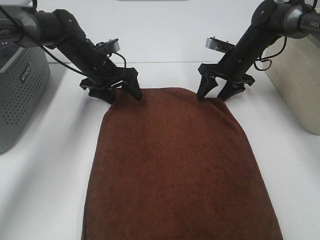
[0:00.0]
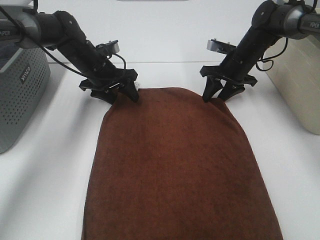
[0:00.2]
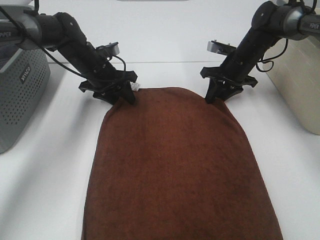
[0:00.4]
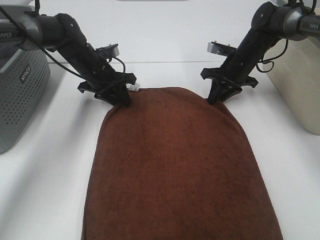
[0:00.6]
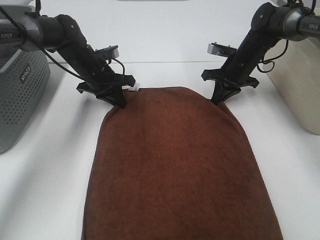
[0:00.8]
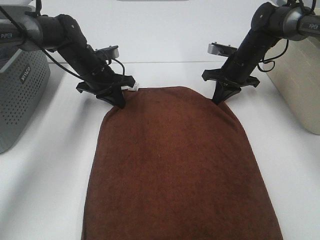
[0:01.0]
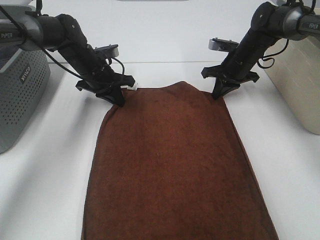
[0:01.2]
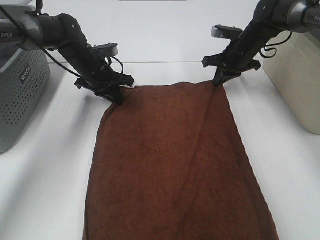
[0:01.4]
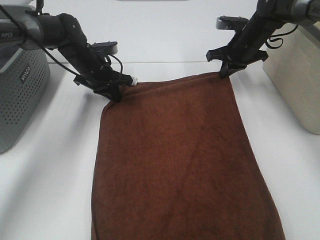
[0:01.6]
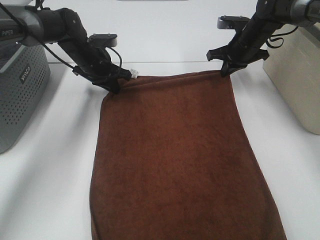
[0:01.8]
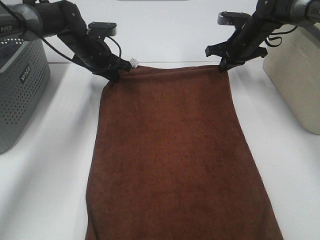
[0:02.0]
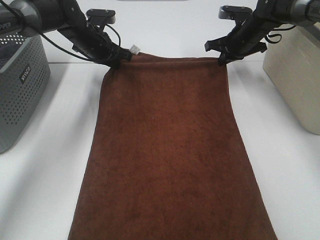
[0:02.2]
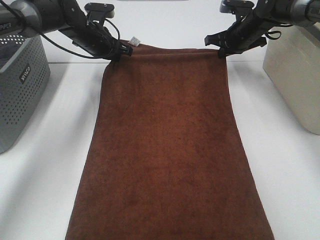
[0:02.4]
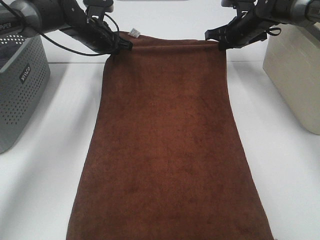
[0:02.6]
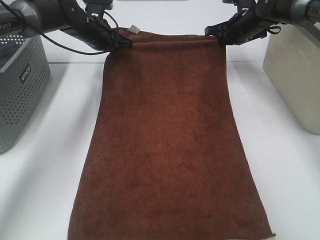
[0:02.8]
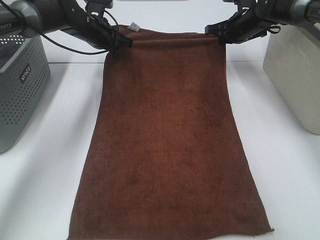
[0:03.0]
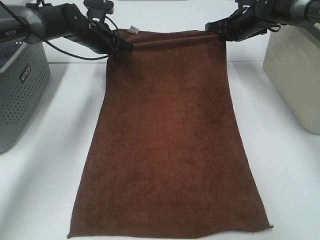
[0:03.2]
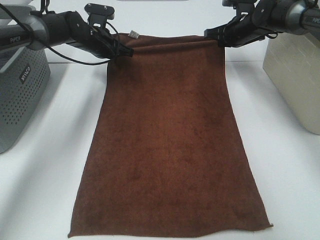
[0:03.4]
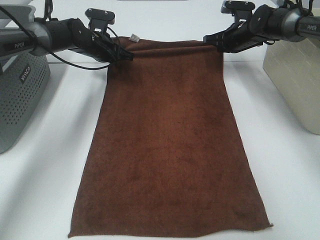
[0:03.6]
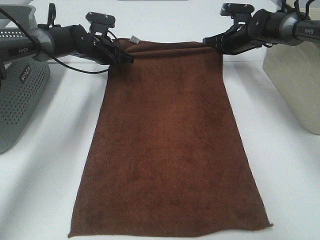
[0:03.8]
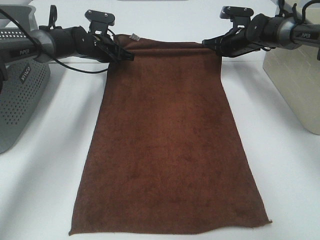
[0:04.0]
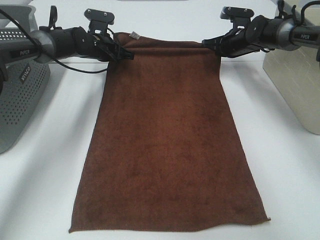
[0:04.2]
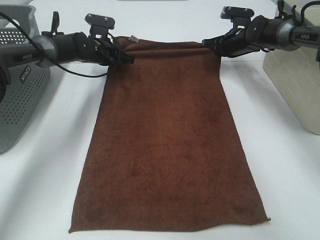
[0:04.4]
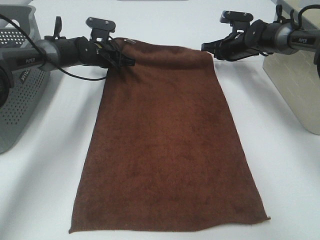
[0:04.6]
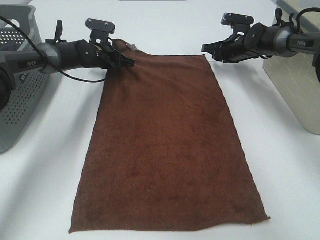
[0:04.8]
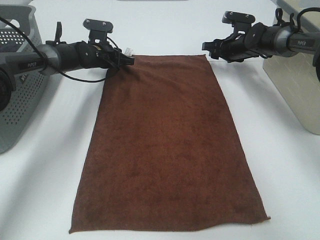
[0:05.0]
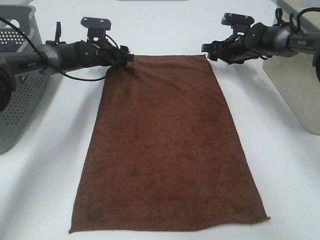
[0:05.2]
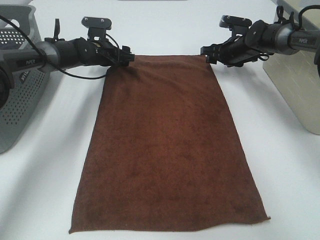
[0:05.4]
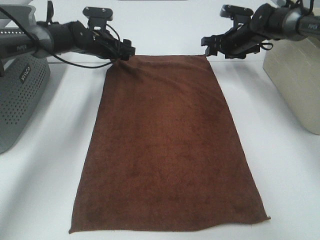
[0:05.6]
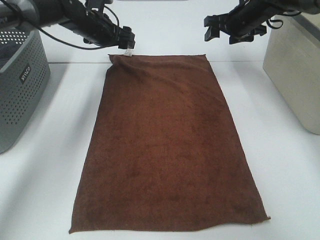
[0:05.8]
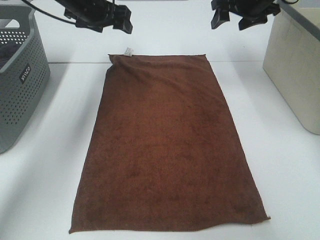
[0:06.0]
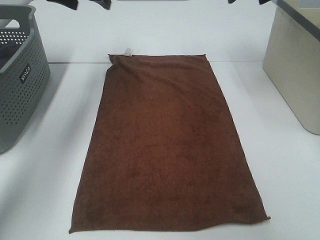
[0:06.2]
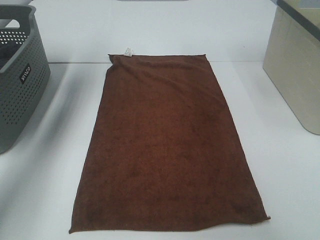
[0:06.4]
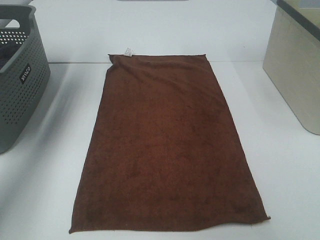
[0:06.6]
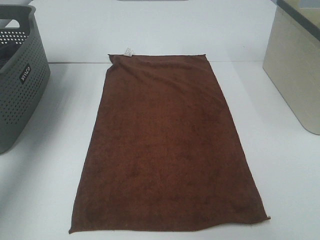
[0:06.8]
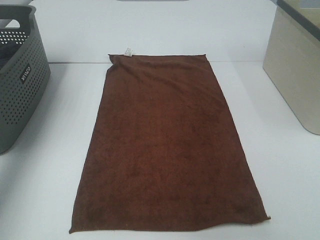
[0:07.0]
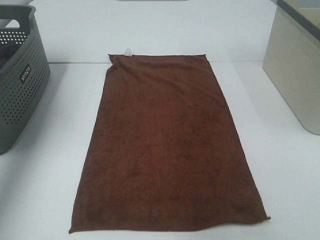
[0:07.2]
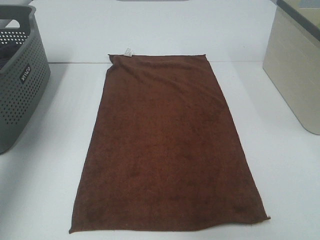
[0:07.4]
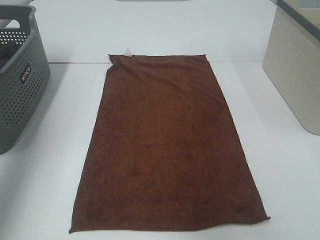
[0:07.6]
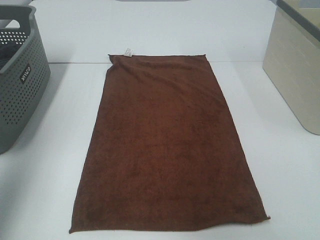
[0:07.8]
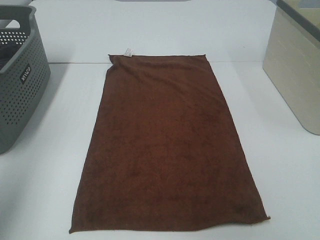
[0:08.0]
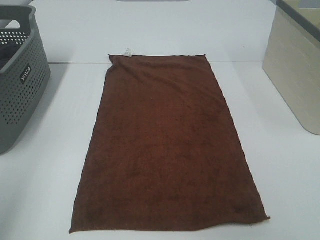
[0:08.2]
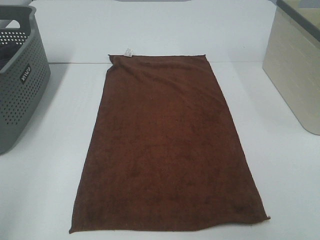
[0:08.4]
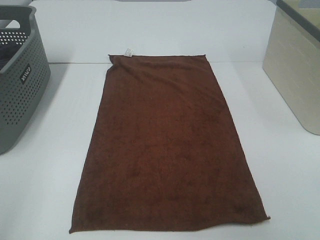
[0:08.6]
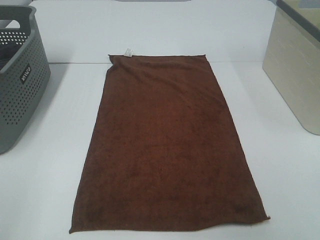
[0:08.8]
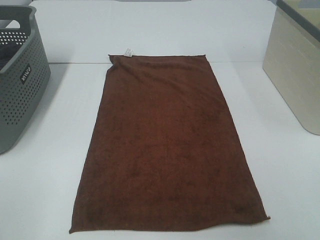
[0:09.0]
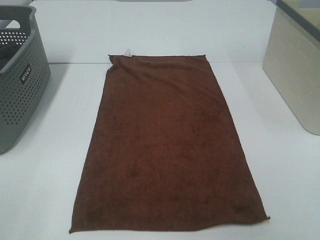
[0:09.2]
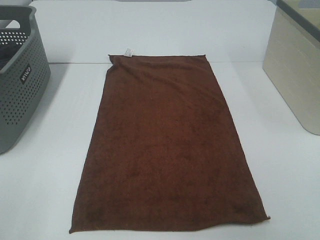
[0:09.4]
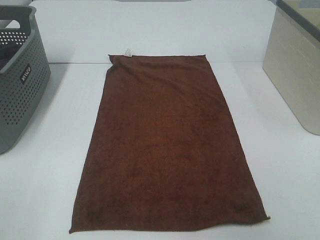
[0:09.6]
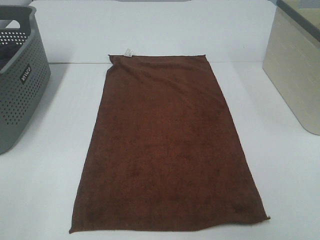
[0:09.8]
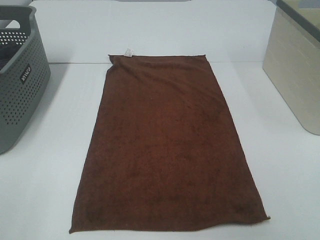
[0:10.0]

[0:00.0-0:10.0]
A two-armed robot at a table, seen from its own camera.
Task of the whole recording: Remove the towel and place it.
0:00.0 to 0:01.4: The left gripper closes; the right gripper closes.
0:01.4 to 0:02.8: The left gripper shifts about 10 cm upward and forward.
0:02.8 to 0:04.2: Both grippers move downward, approximately 5 cm.
0:04.2 to 0:05.8: The grippers both shift upward by roughly 10 cm. The left gripper opens up; the right gripper opens up.
0:05.8 to 0:07.2: The right gripper moves upward and backward, some 35 cm; the left gripper moves upward, to the left and backward, roughly 35 cm.
0:07.2 to 0:08.6: The left gripper shifts about 35 cm backward.

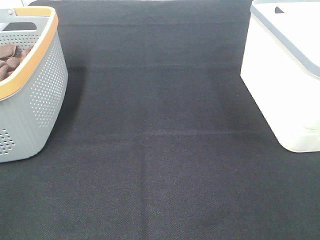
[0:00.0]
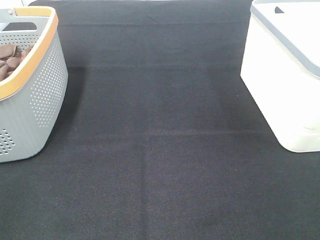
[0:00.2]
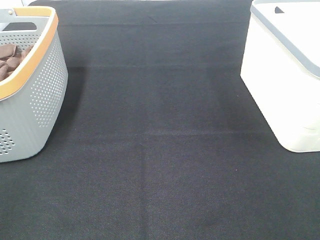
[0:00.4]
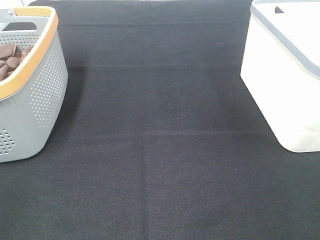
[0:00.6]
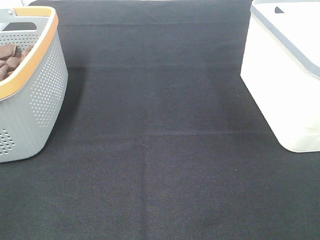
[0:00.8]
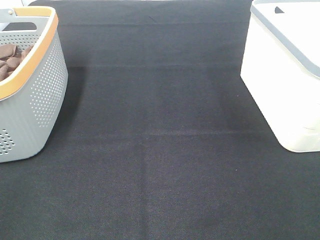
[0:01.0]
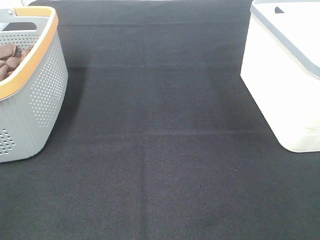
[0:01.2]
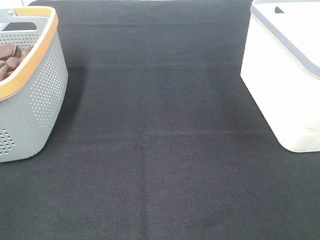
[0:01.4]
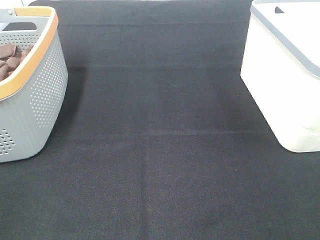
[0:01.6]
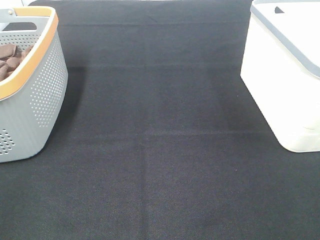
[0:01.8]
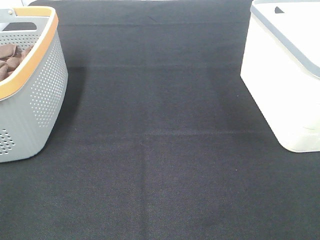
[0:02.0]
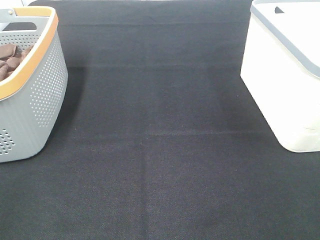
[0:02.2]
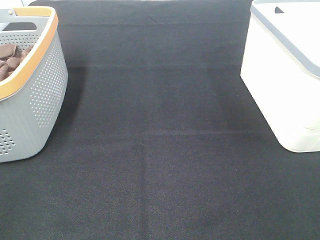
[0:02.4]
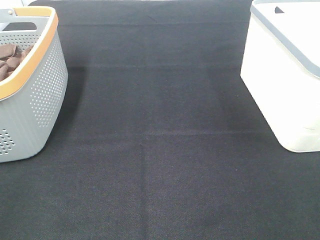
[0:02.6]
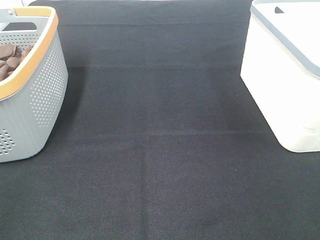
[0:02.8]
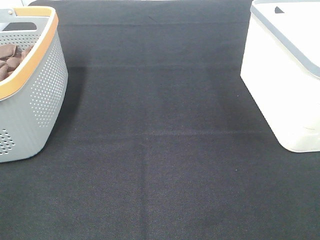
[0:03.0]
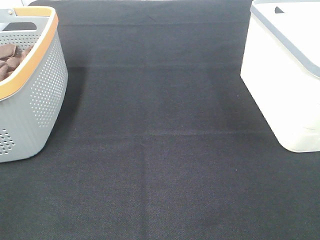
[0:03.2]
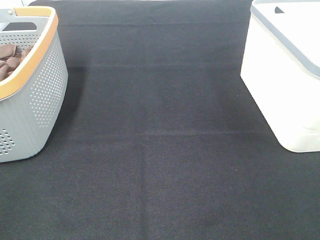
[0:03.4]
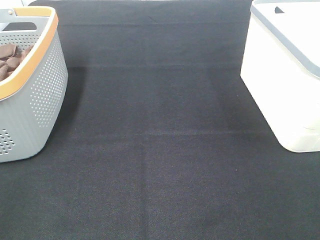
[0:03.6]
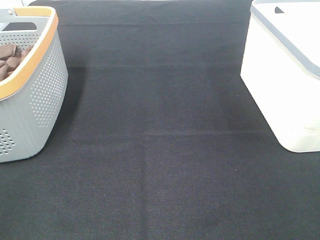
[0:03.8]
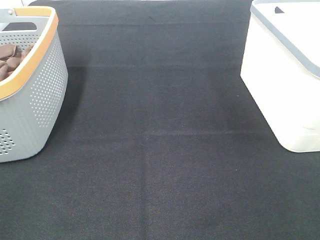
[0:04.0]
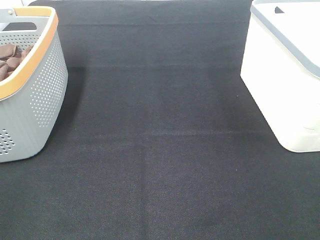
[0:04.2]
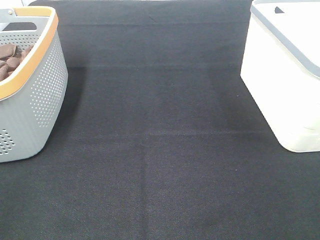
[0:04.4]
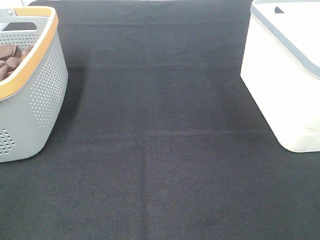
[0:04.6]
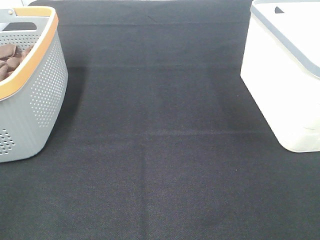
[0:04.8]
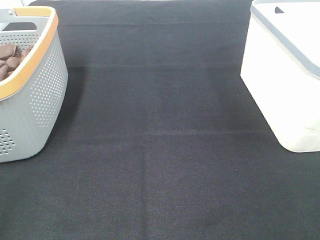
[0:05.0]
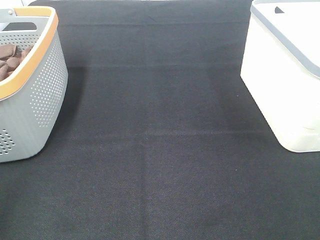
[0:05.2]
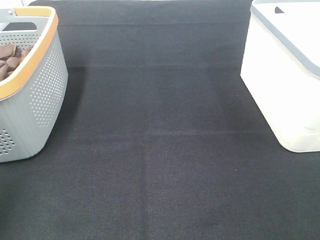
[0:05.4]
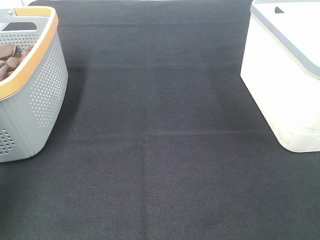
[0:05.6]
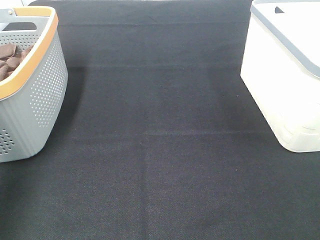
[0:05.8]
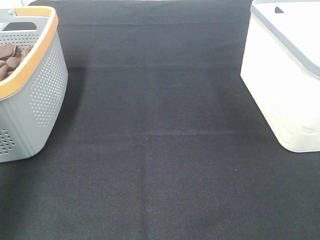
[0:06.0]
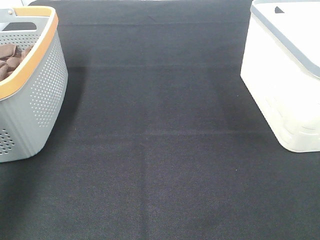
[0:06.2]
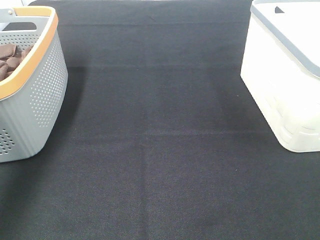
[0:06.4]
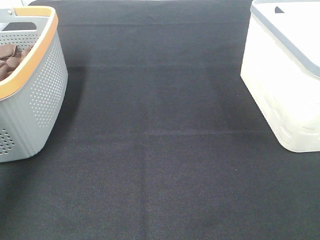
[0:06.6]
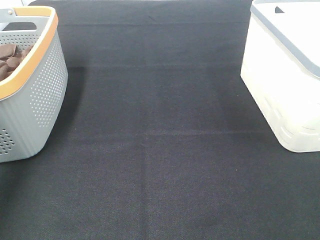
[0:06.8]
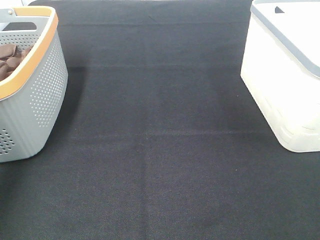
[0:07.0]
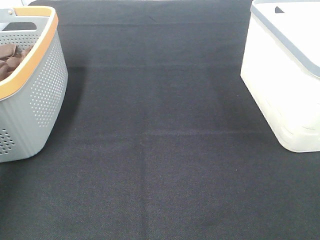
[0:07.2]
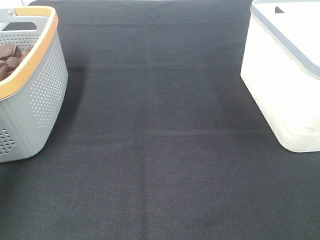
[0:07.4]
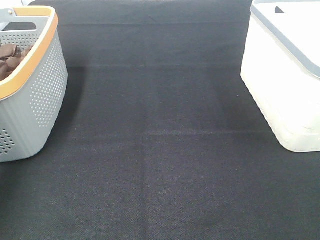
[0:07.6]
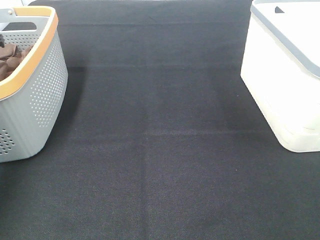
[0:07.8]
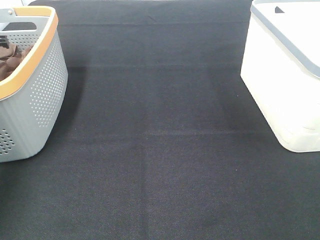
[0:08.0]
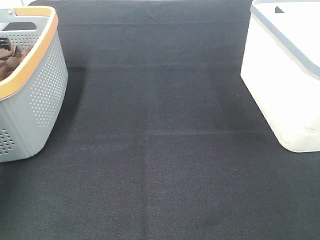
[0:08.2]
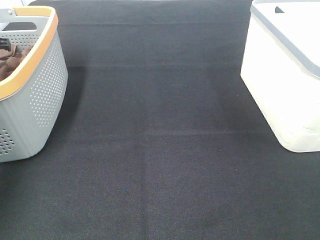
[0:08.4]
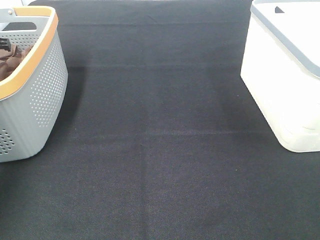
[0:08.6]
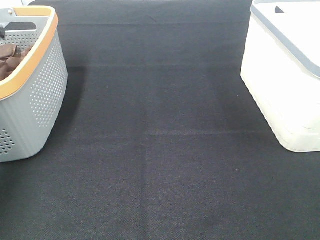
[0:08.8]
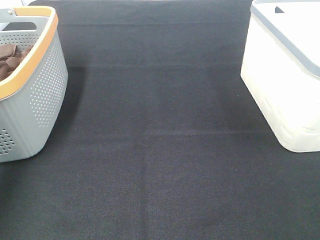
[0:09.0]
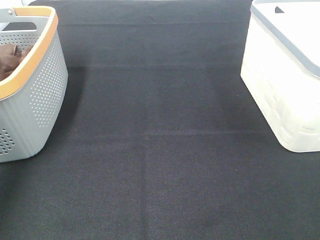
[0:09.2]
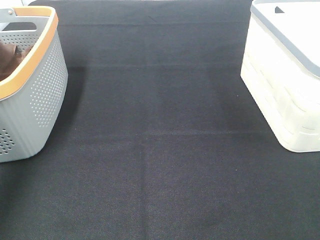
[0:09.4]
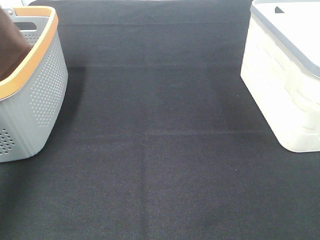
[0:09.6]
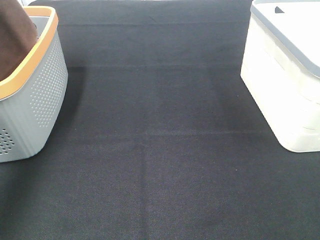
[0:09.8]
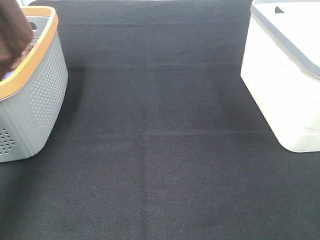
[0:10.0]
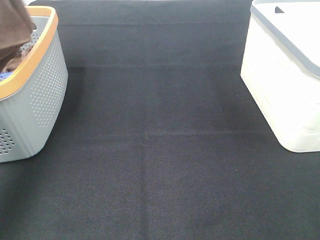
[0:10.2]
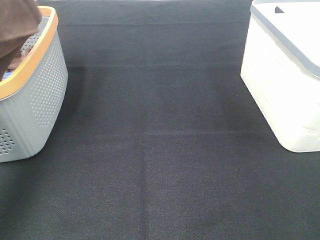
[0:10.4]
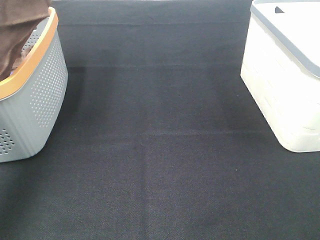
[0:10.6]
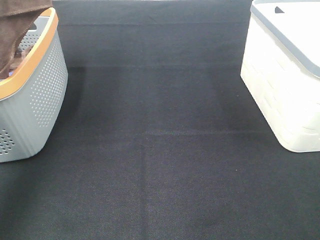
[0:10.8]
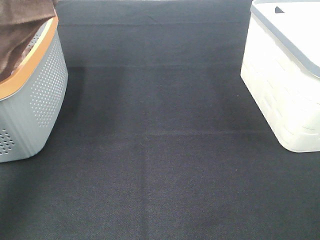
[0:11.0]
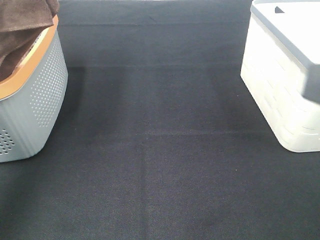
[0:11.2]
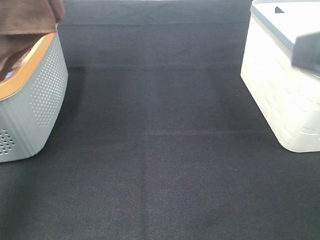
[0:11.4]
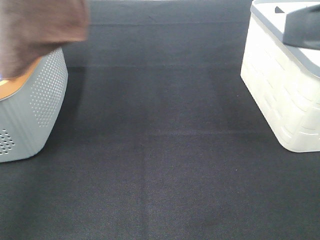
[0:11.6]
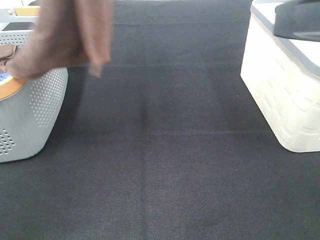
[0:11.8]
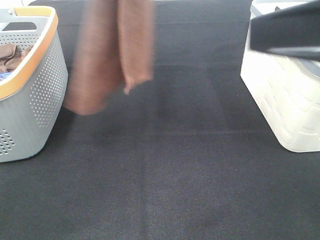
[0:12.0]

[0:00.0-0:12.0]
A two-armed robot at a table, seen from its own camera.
Task of the whole recording: Remove the towel and place it.
0:00.0 to 0:04.4: The two grippers keep their place.
0:04.4 to 0:06.0: The left gripper heads forward, covering some 25 cm.
0:09.0 to 0:10.4: The left gripper heads upward and backward, covering approximately 30 cm.
0:10.4 to 0:12.0: The right gripper goes approximately 15 cm forward and to the left. The left gripper is displaced to the right by roughly 20 cm.
